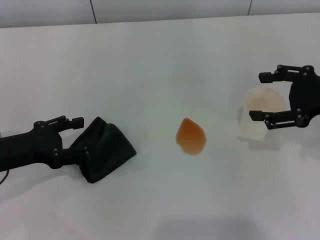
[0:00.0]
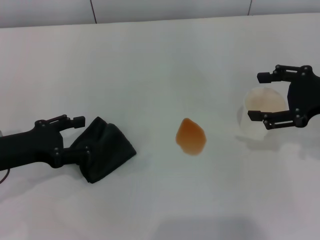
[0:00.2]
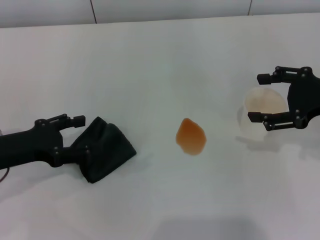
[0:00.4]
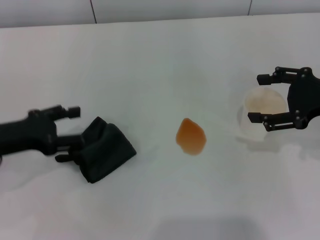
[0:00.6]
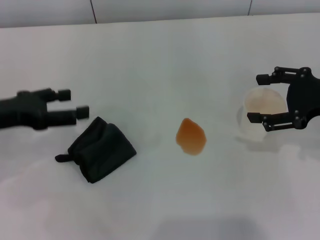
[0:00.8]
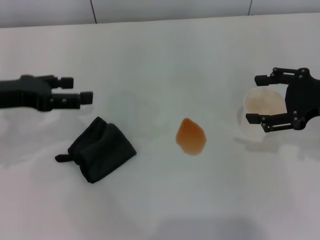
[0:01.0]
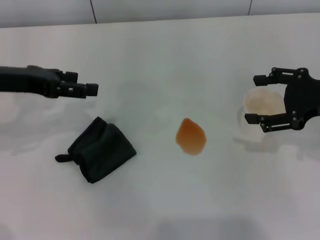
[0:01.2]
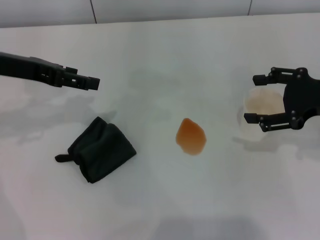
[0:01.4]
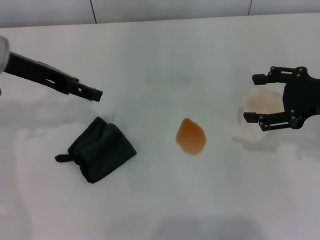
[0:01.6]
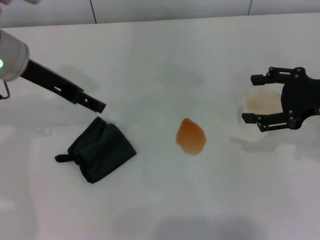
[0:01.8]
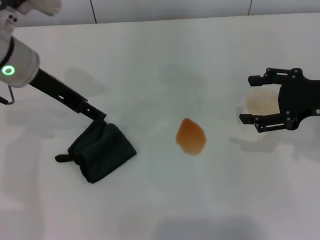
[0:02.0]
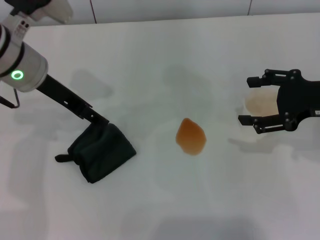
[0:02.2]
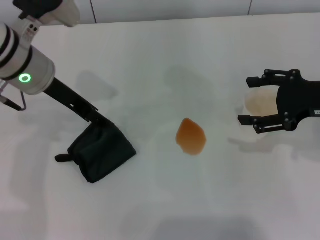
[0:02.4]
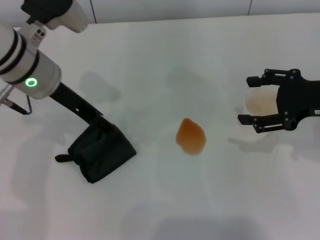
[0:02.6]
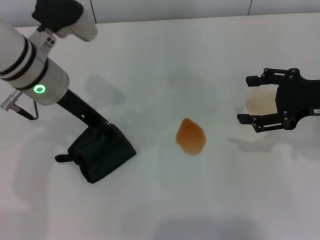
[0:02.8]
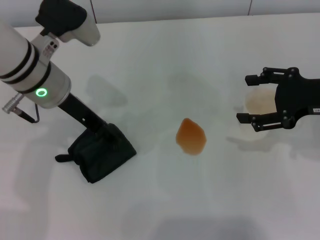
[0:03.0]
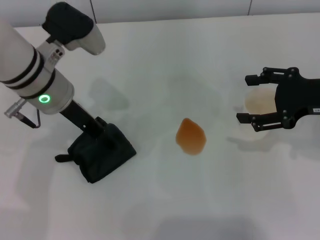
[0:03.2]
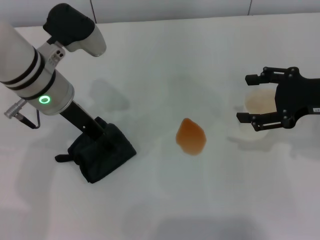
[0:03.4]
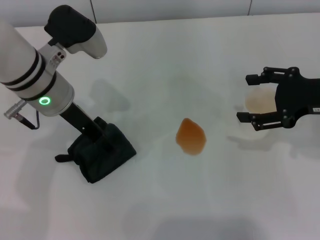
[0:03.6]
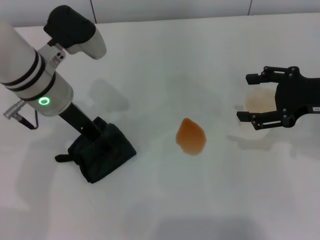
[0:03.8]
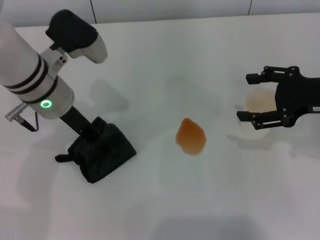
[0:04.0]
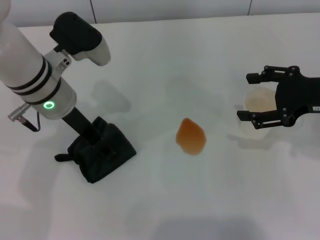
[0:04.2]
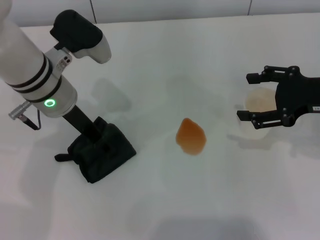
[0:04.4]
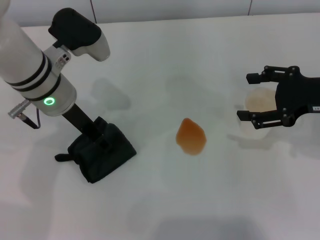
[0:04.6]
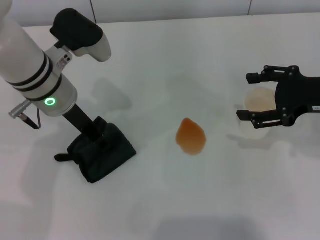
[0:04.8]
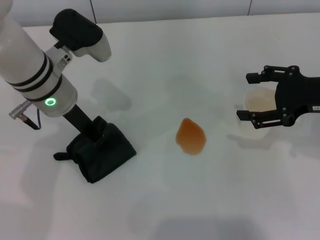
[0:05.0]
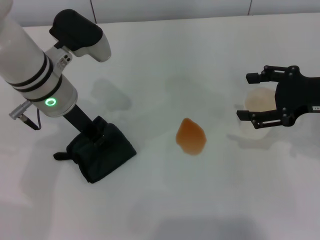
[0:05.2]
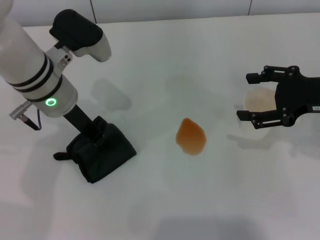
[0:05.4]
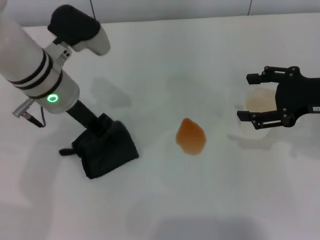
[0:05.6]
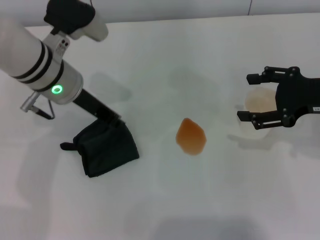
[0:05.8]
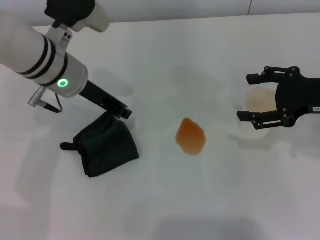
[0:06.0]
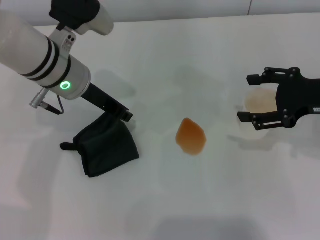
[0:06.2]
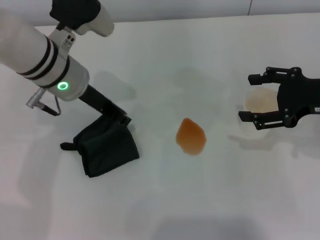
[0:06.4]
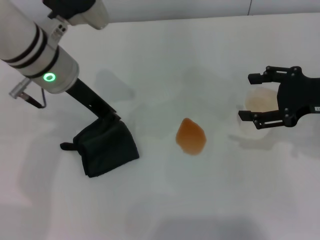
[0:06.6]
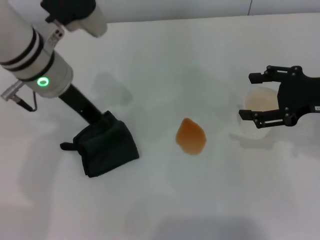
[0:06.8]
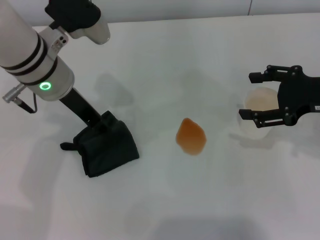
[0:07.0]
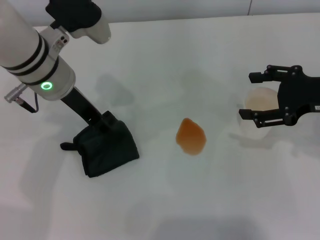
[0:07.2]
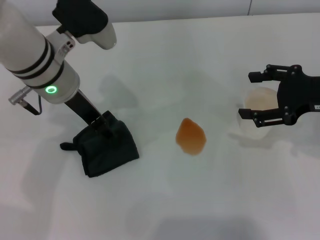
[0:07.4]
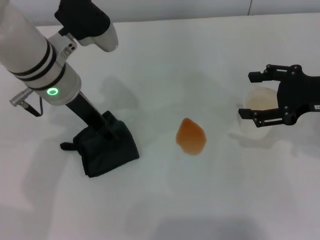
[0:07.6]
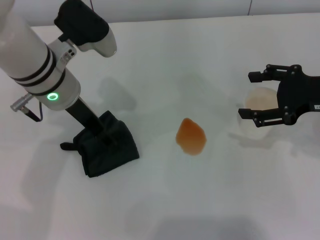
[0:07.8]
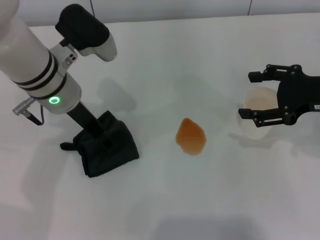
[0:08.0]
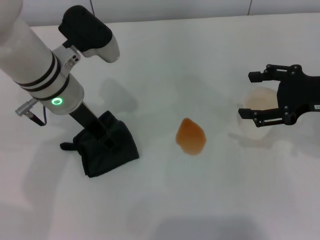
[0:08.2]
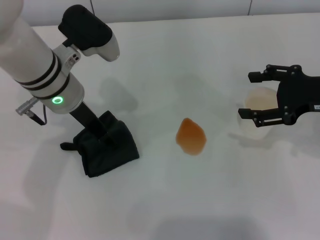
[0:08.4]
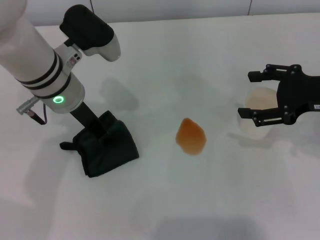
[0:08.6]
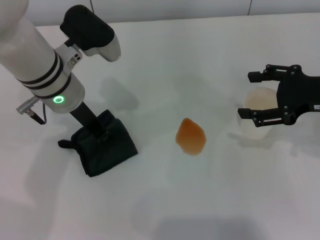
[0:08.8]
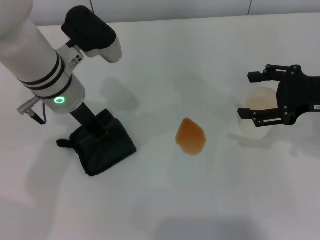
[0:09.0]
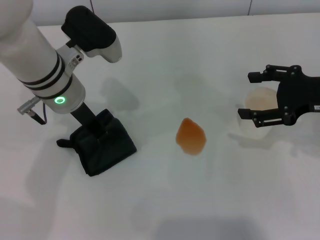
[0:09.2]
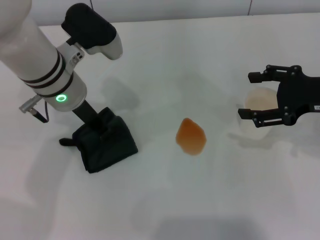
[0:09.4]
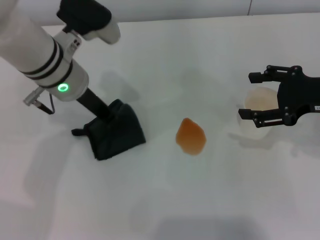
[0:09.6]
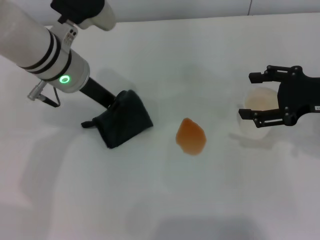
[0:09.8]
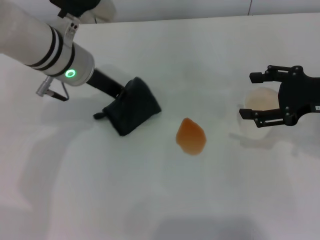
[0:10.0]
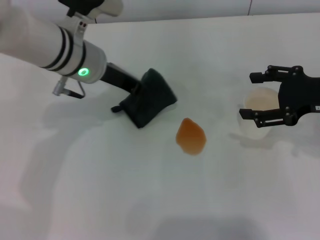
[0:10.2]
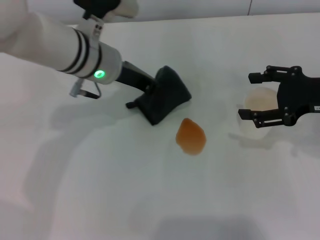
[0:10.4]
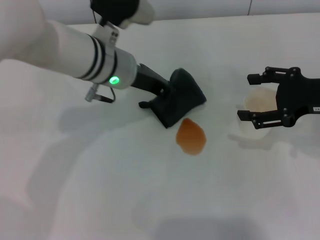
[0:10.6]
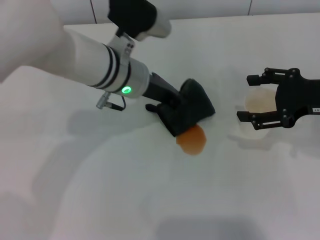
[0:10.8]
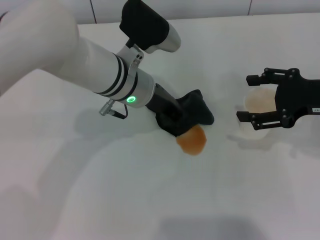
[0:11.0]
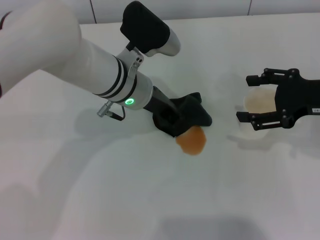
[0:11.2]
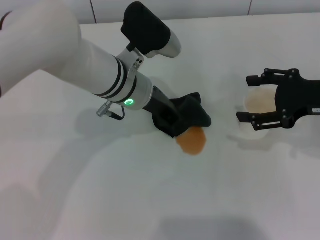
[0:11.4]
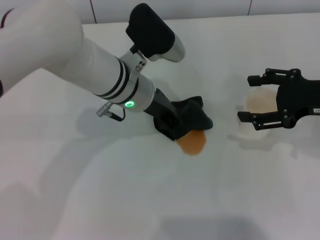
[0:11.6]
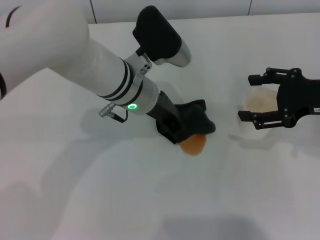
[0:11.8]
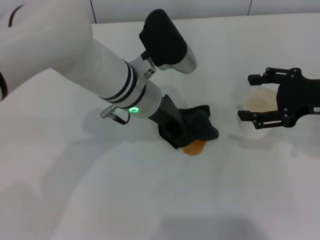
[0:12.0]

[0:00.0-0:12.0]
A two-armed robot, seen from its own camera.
Step, 0:00.0 to 0:09.2: Grasp the rag with the left gripper.
0:00.0 to 0:01.6: The left gripper shifts roughly 15 cm upward, forward and to the right.
0:01.6 to 0:03.0: The left gripper shifts approximately 10 cm to the right.
0:03.0 to 0:04.4: There are only small adjustments of the grippers.
0:04.4 to 0:06.0: The left gripper closes its fingers.
0:06.0 to 0:07.6: The left gripper opens its fingers.
0:07.6 to 0:09.0: The left gripper closes.
0:10.4 to 0:12.0: The left gripper travels to the right by some 5 cm.

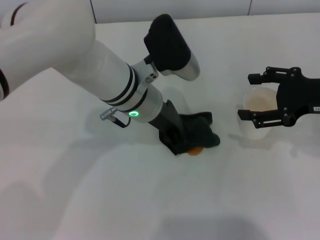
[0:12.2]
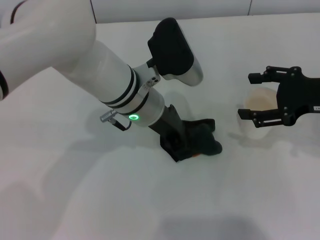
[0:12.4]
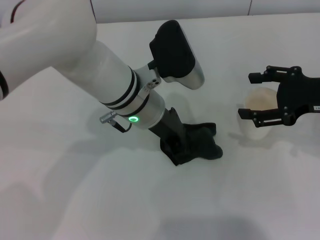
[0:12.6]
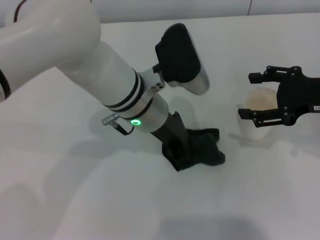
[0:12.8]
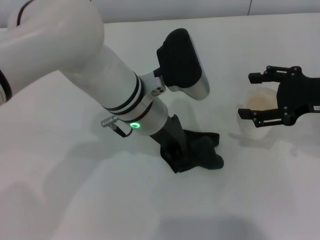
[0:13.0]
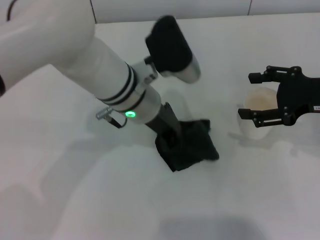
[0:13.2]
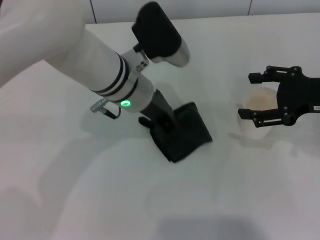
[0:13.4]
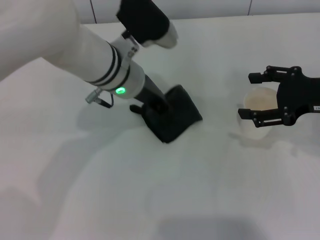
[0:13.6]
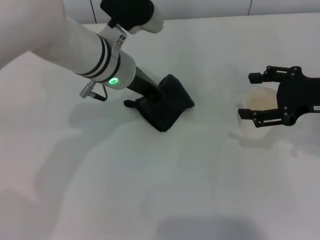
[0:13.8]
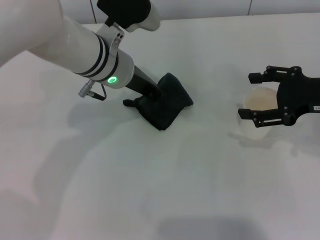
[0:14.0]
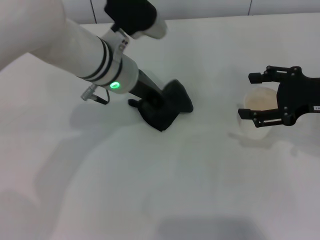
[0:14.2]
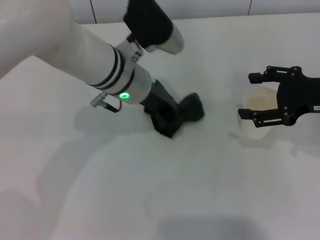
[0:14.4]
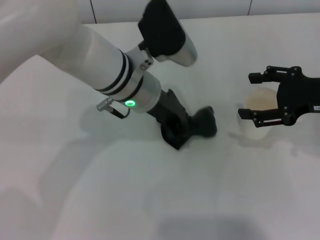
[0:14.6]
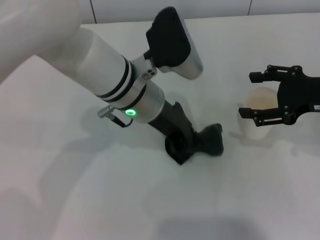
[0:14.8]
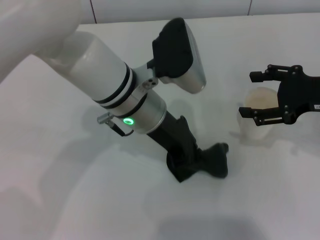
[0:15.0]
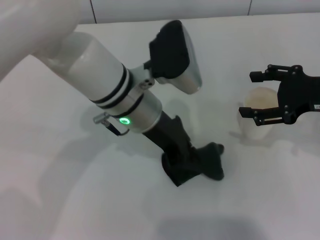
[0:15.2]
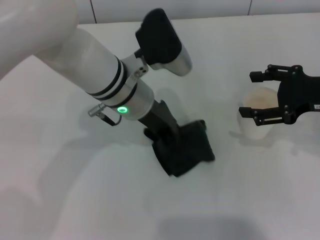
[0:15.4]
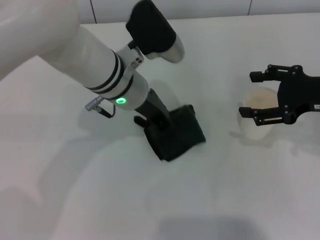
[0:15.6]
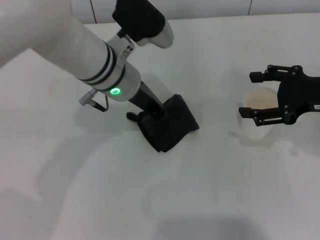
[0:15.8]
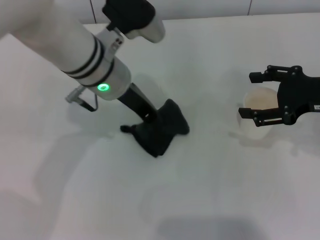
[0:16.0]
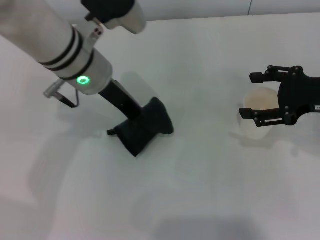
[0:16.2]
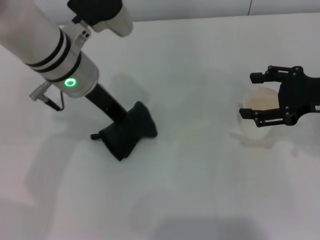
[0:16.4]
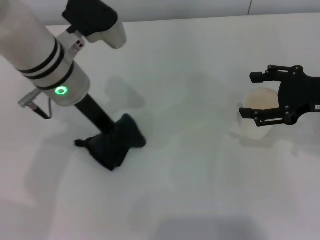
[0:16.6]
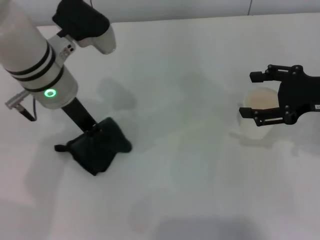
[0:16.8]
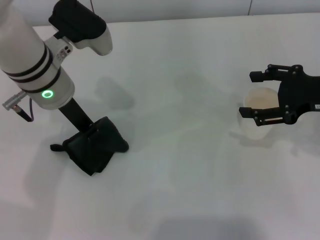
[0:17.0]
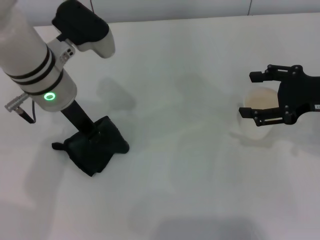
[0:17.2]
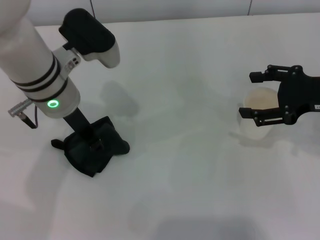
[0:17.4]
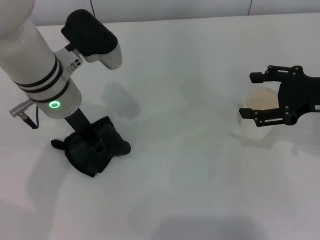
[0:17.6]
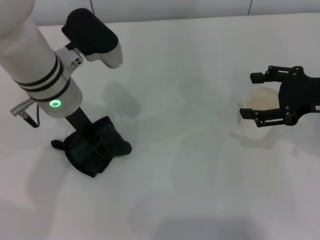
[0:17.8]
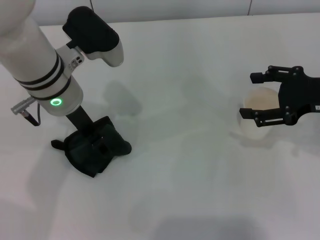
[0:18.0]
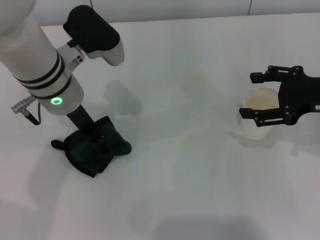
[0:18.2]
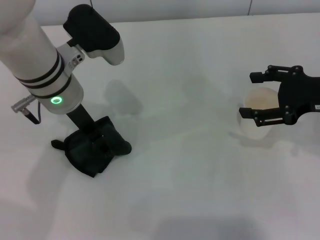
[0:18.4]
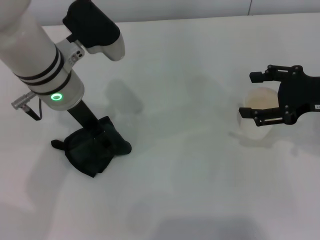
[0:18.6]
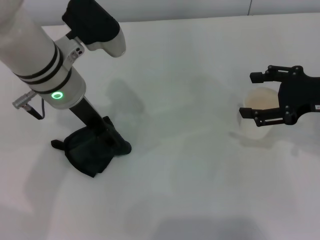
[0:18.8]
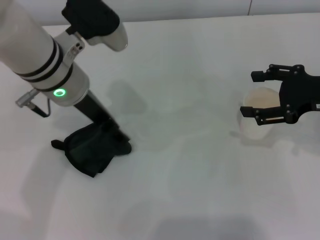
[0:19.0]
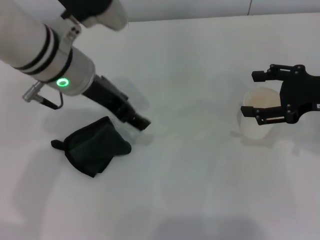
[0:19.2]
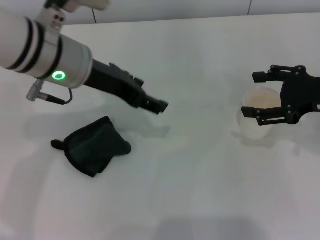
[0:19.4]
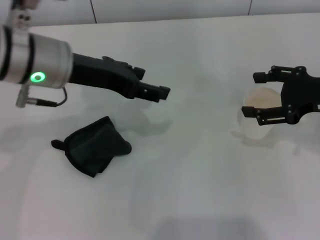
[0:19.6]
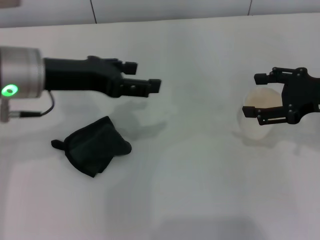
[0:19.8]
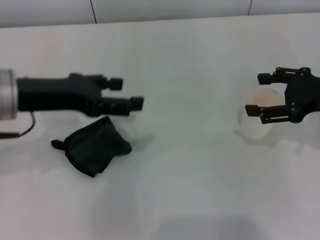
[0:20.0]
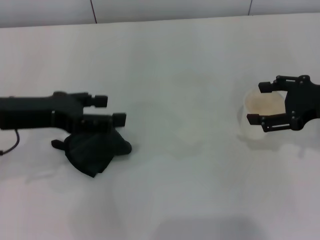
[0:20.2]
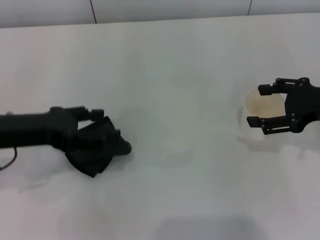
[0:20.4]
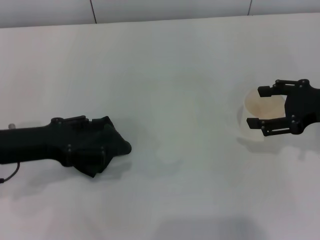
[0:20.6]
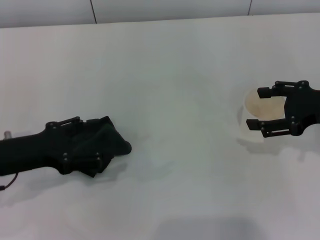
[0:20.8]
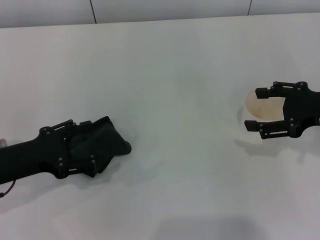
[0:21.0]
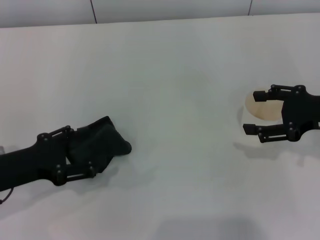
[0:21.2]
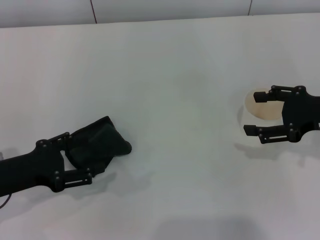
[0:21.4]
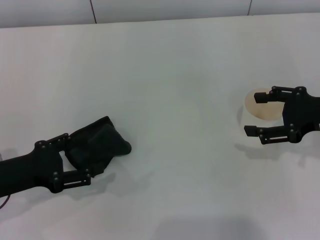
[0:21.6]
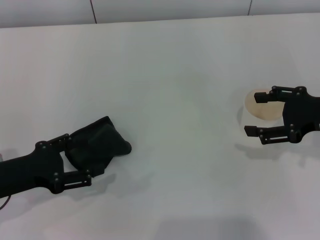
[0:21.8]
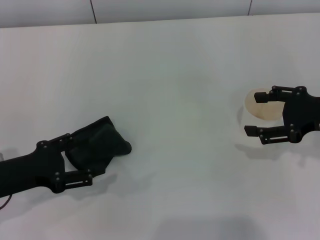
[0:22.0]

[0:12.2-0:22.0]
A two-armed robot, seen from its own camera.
Step, 0:12.2 to 0:16.8: Wipe the stains off the table with the left gripper.
Step, 0:17.0 to 0:19.0: Place the rag on the table with the left gripper.
0:12.2 to 0:13.6: There are only small adjustments of the grippers.
0:13.6 to 0:15.0: The left gripper moves roughly 5 cm.
0:15.0 to 0:16.4: The left gripper heads to the left, covering approximately 10 cm.
0:16.4 to 0:17.8: The left gripper opens up.
0:17.8 to 0:19.2: The left gripper opens its fingers.
0:19.2 to 0:20.6: The left gripper goes some 20 cm to the left, backward and downward.
0:20.6 to 0:22.0: The left gripper shifts by about 5 cm.
